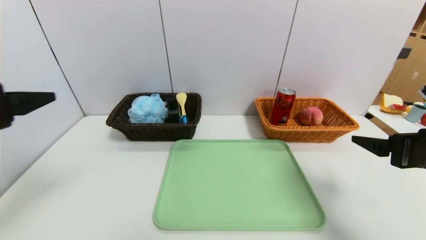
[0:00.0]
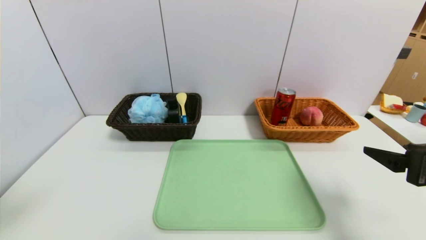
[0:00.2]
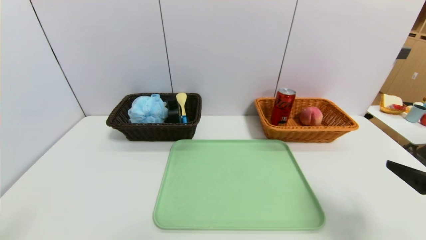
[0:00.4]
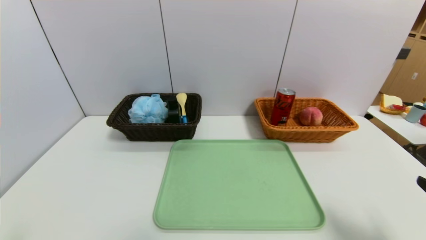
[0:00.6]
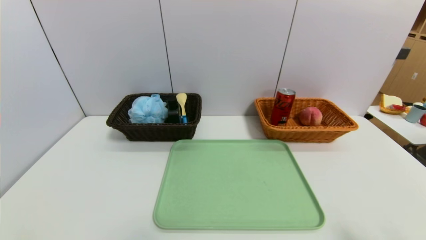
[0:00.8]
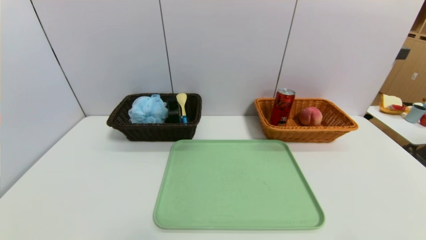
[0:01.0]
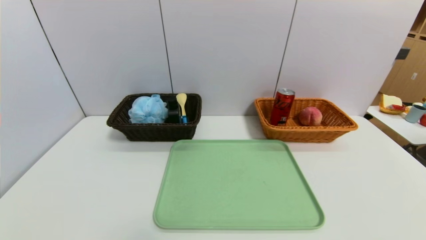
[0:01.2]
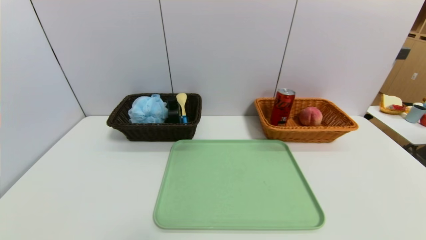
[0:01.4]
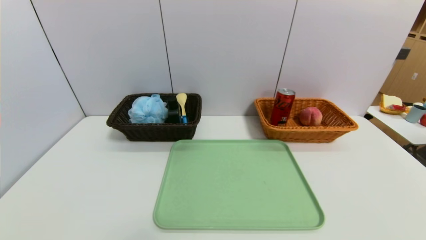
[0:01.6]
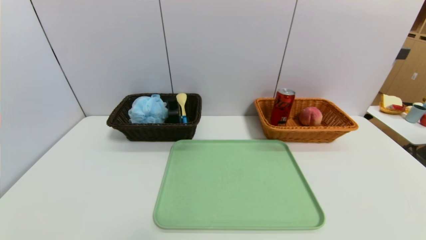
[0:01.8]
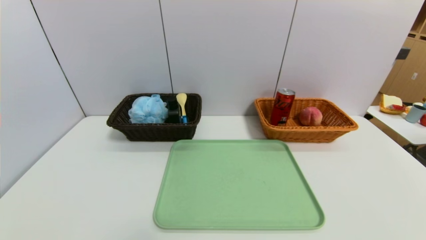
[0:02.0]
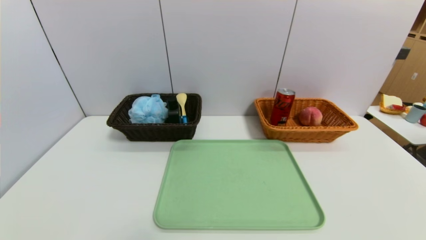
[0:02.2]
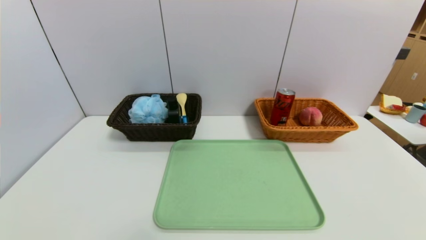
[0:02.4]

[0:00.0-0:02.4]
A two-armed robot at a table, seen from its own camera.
Task of the whole recording: place the food in the right basket with the right gripper, and place the non food items in the left basket with the left gripper.
0.0 to 1.2 s: The right gripper goes approximately 20 cm backward and downward. Meanwhile the left gripper travels downward and backward by approximately 25 cm.

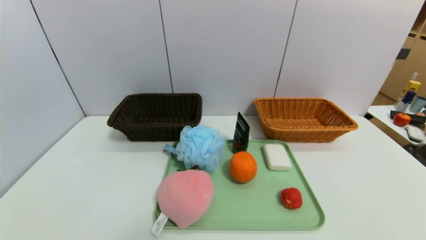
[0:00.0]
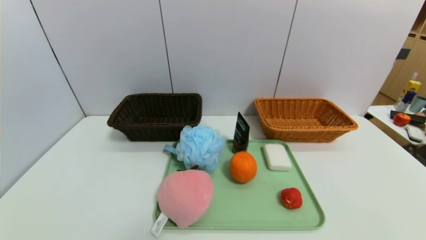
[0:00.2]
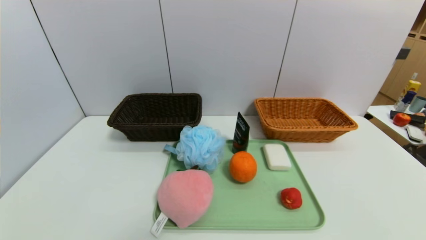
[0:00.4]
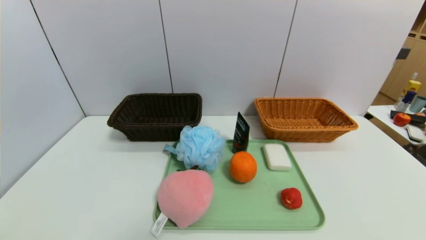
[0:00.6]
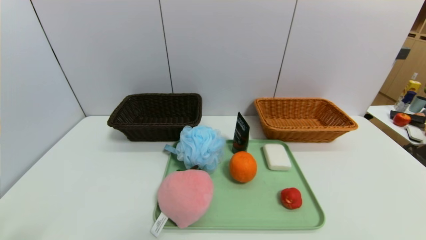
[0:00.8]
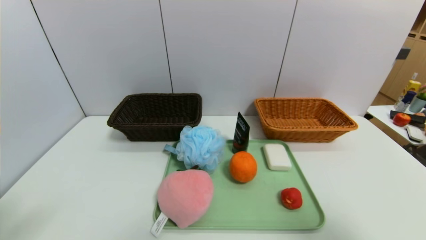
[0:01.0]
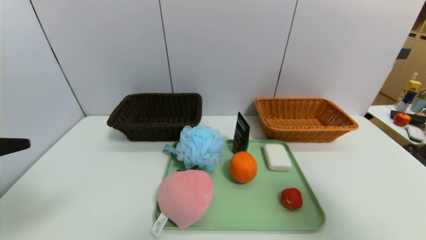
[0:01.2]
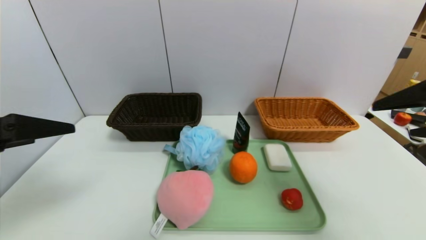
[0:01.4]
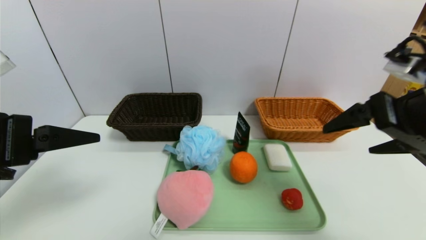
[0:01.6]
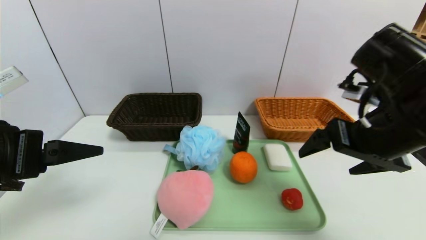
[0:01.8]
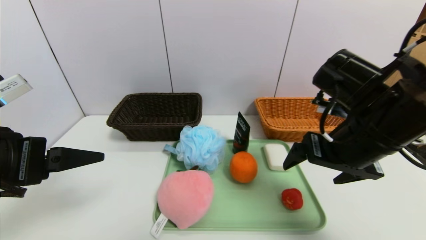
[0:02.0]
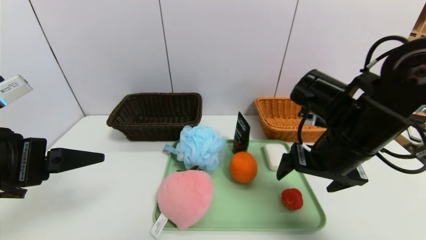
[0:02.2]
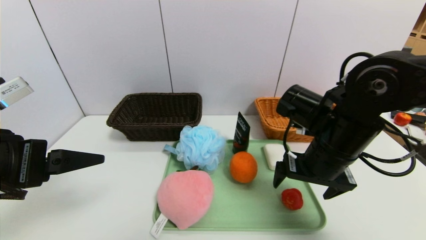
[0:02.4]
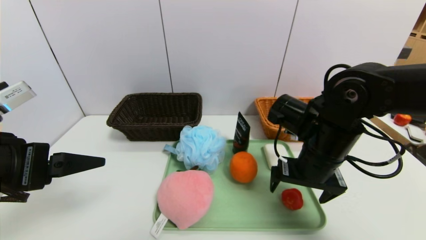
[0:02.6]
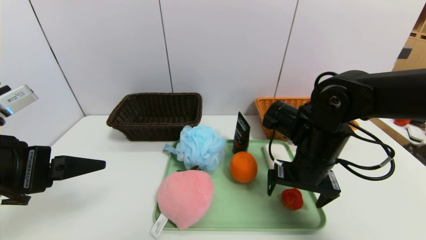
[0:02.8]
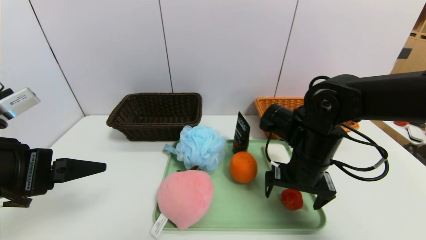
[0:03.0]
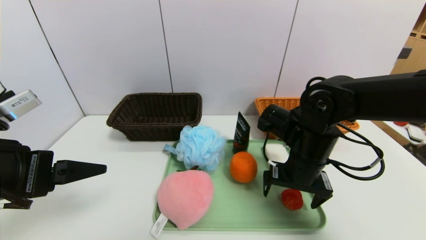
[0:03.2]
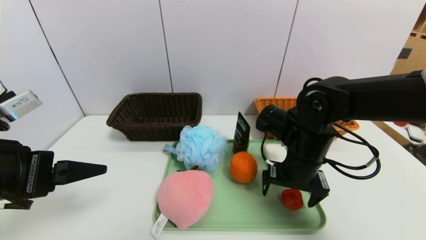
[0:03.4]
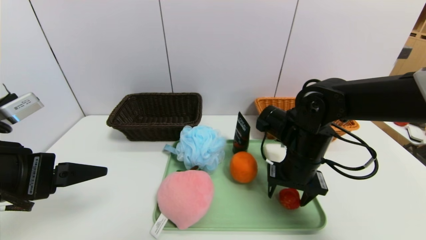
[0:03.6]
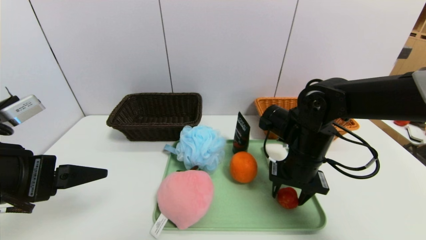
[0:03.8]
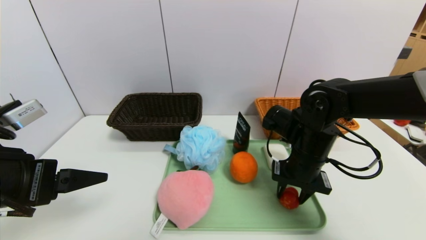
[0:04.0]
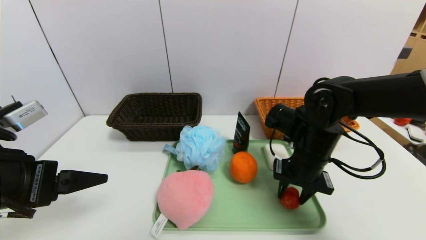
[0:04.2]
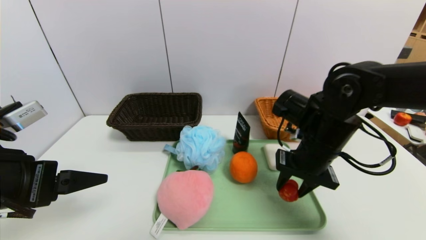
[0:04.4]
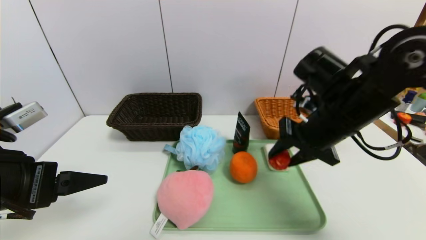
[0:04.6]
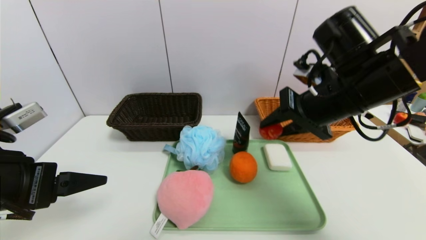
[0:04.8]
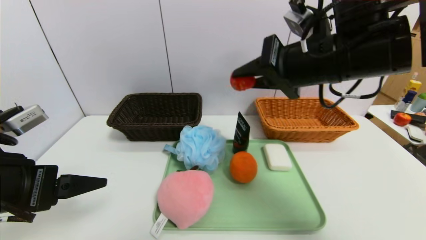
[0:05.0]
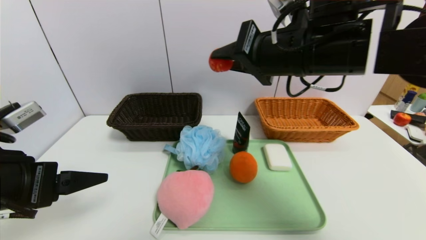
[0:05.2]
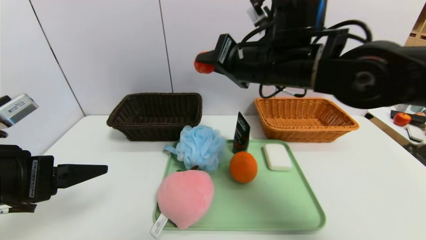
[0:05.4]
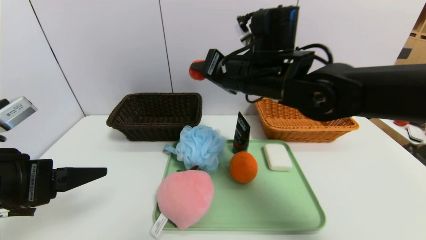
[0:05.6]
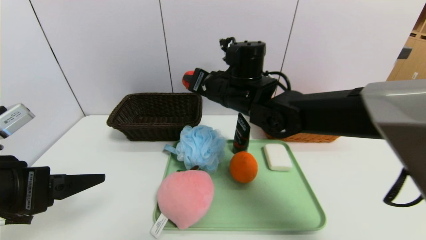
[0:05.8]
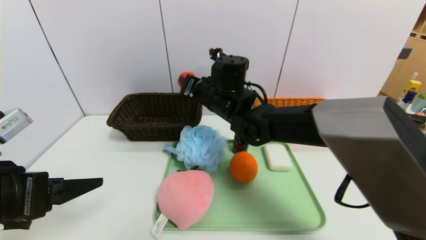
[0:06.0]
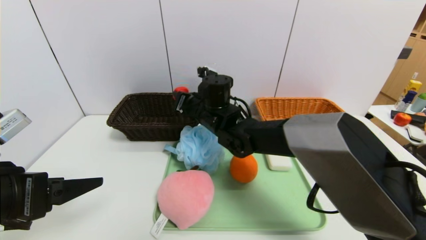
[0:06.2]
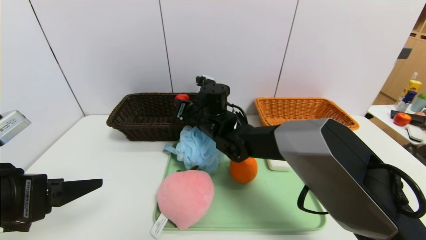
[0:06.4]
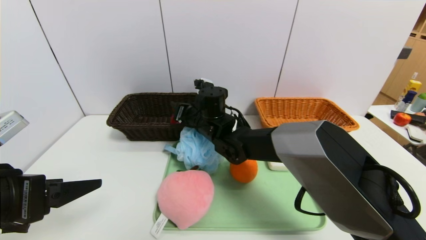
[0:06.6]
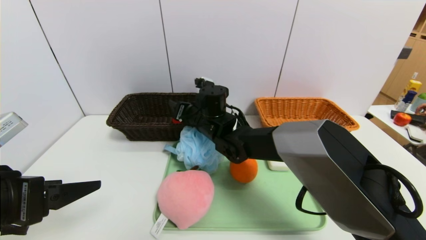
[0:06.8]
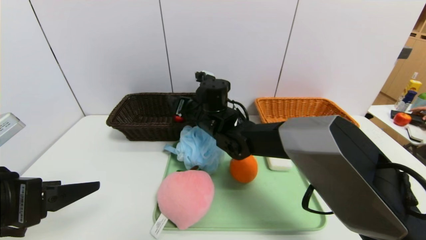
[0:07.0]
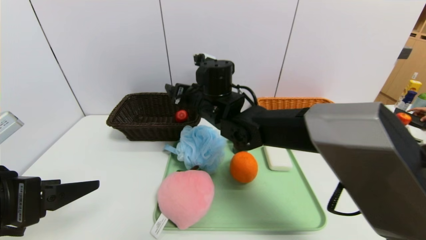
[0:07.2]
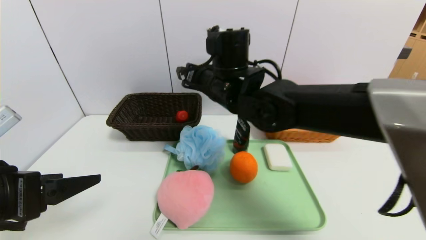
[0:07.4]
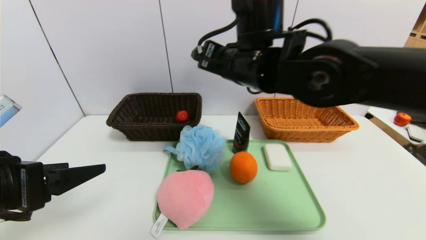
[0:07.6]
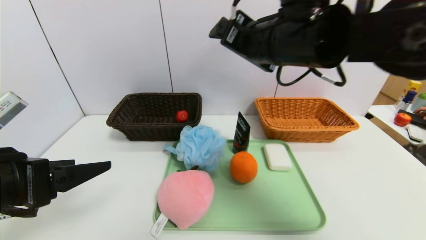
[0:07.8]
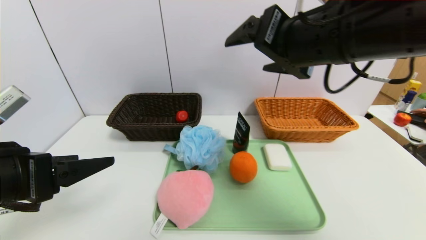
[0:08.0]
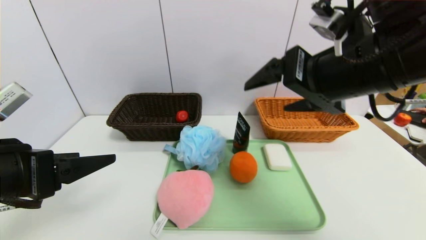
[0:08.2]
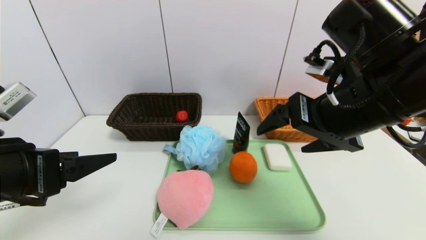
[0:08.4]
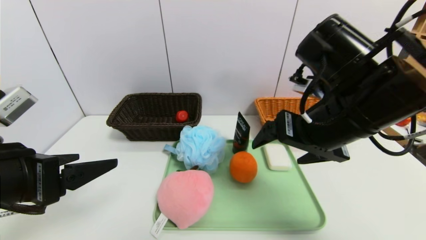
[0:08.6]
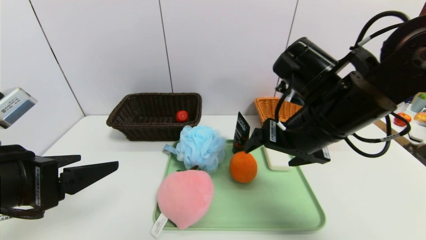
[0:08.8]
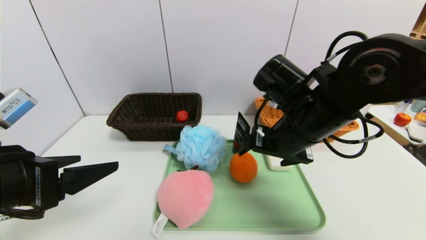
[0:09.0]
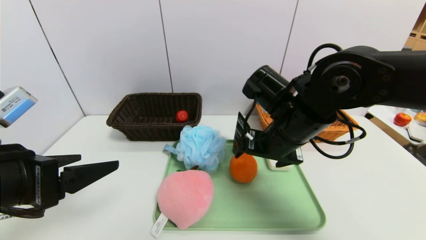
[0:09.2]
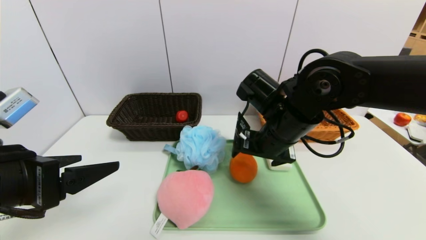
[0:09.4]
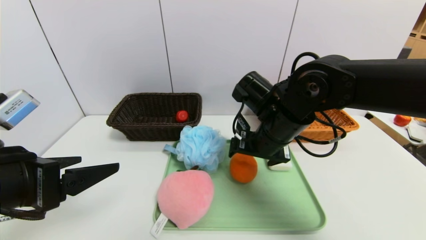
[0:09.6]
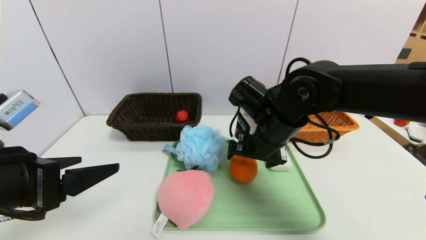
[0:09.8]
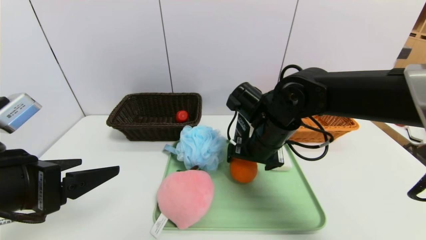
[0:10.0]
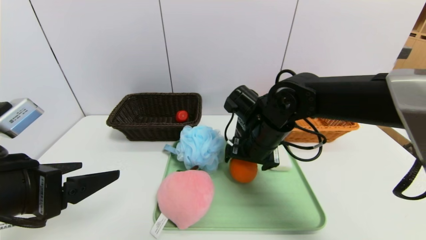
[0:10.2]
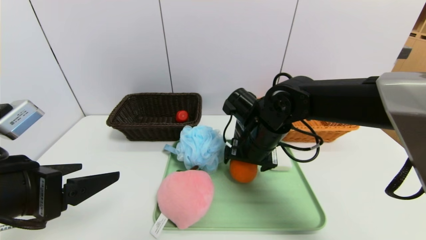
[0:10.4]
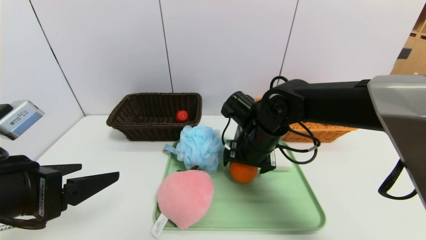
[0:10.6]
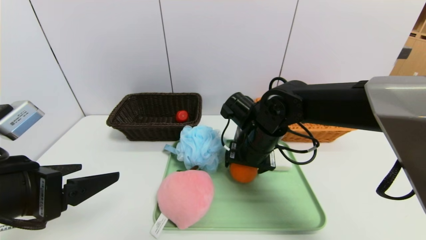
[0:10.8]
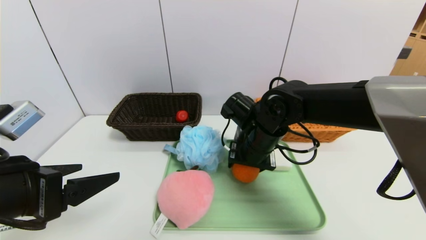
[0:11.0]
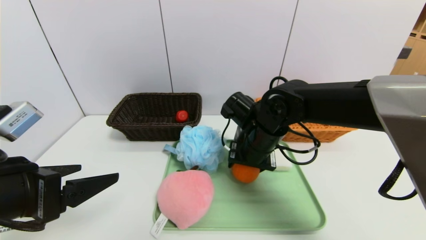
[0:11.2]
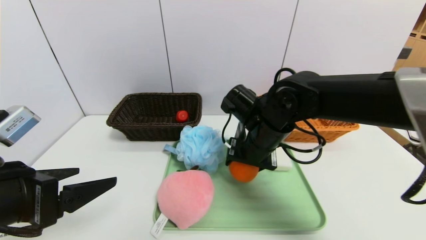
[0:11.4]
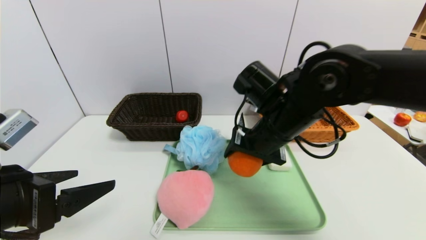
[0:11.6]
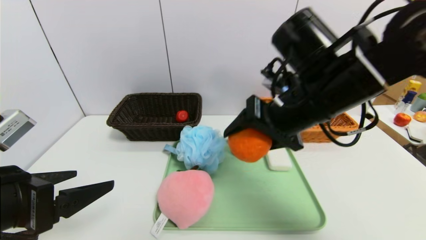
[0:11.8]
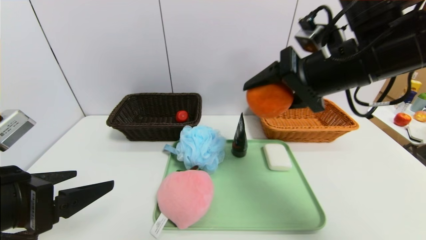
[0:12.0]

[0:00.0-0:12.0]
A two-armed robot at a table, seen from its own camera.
Task of the whole recording: place the food in the right basket with the right gripper, and place the non food items in the left basket with the left gripper.
Step, 0.0 to 7.0 s: Grasp the red duck and put it in the left basket.
0.0 to 1.6 s: Both grippers move upward and forward, approximately 30 cm.
1.6 to 3.0 s: The right gripper goes roughly 20 cm downward, to the left and forward.
3.0 to 4.4 s: The right gripper closes up.
4.4 to 6.0 s: The right gripper is displaced to the left and forward by about 20 cm.
6.0 to 7.6 s: The right gripper travels upward, backward and to the right by some 15 cm, and opens its fingers.
7.6 to 9.0 s: The right gripper travels downward and to the right by about 10 cm.
9.0 to 10.4 s: The right gripper shifts approximately 10 cm downward and forward.
10.4 to 12.0 s: The right gripper is displaced upward and to the right by roughly 20 cm, and closes up.

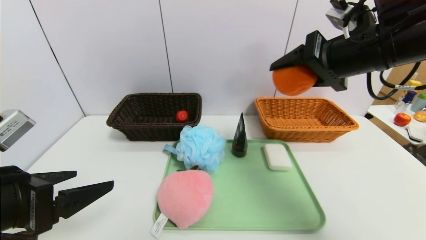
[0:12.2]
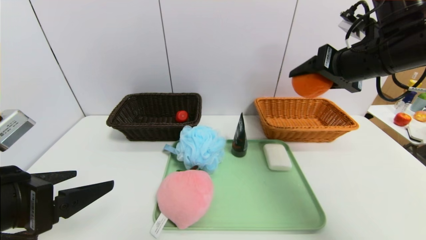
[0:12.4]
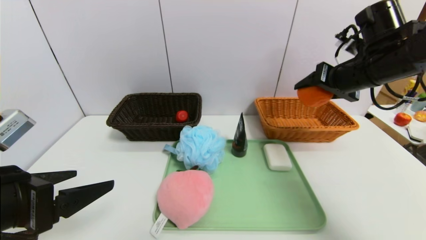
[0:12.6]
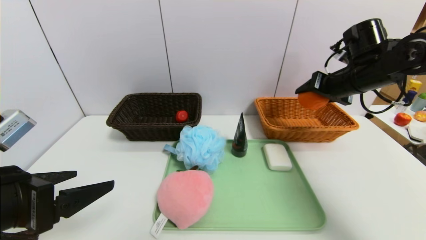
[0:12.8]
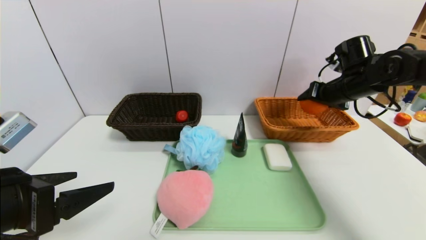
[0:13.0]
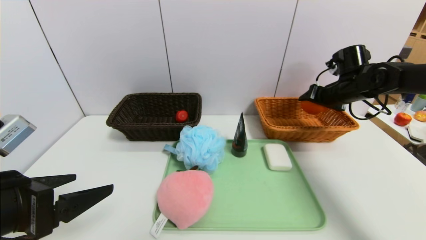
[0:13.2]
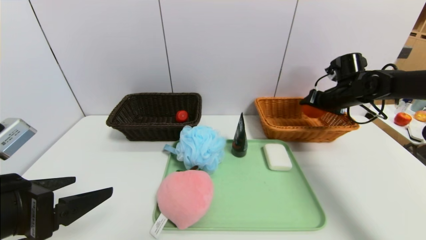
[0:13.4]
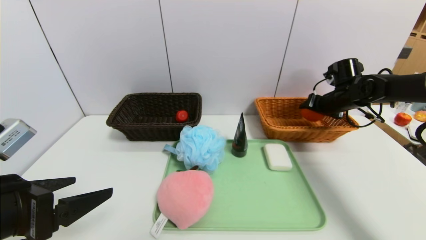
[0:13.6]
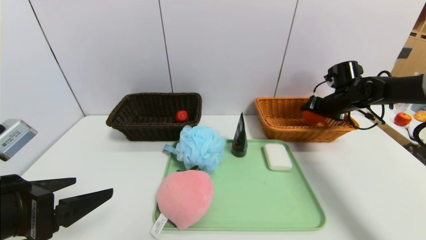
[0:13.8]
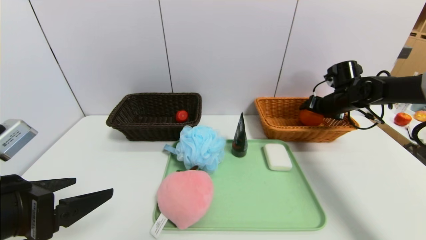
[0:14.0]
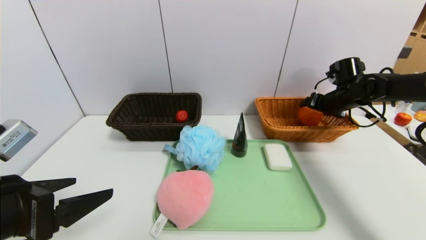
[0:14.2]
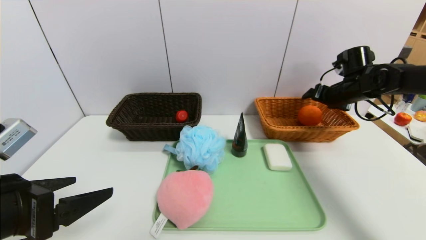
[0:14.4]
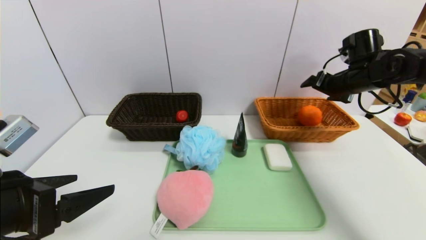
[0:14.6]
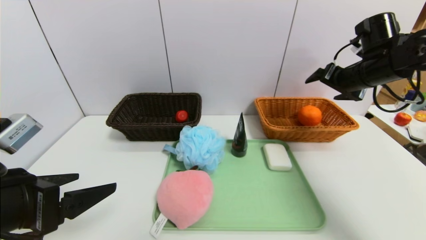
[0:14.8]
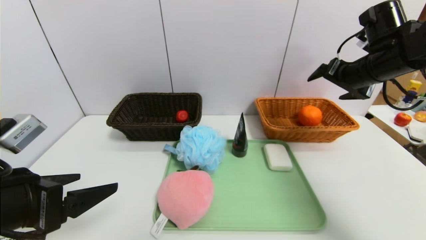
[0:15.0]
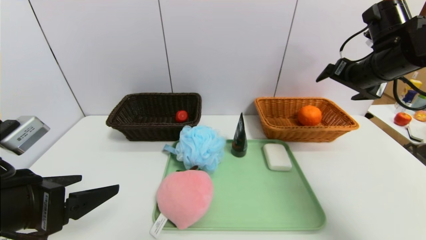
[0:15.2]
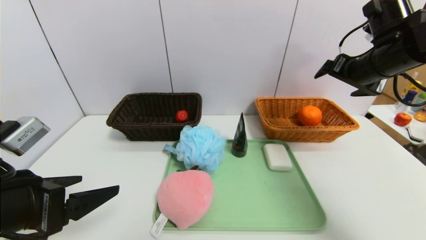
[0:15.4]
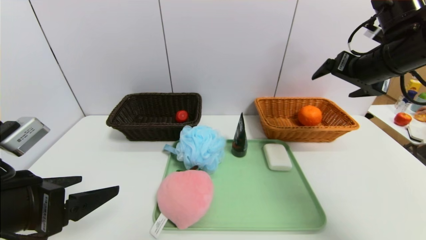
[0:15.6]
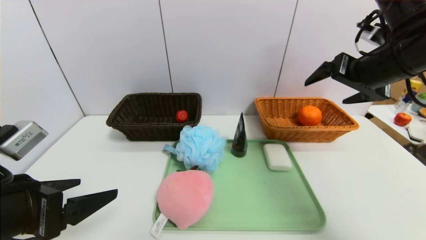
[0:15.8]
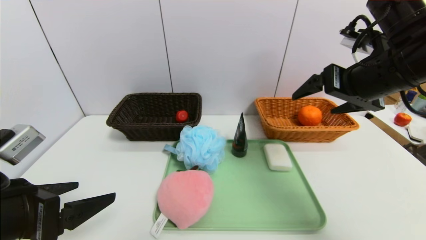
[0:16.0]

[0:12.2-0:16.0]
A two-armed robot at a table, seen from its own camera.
Task of the whole recording: place the food in the right basket with the right gripper, and place the non food items in the left basket with the left gripper.
Step, 12.2 to 14.8 s: Grasp the orange and put it in the right basket.
12.2 to 13.4 s: The right gripper is displaced forward, downward and to the right by approximately 25 cm.
13.4 to 14.8 s: The right gripper travels upward and backward by approximately 10 cm, and opens up.
14.8 to 16.0 s: The right gripper moves backward and to the left, some 15 cm.
